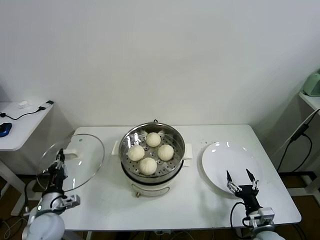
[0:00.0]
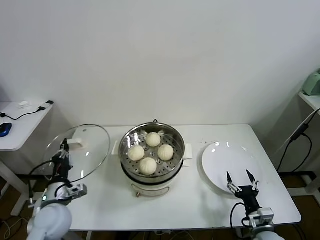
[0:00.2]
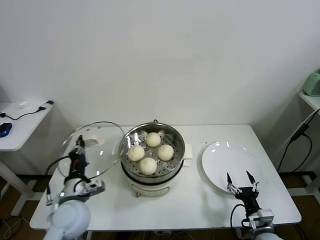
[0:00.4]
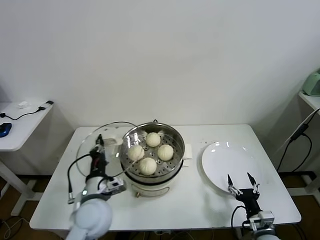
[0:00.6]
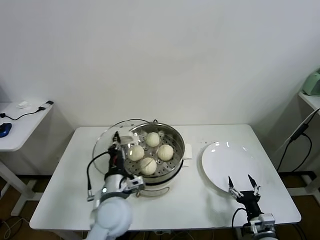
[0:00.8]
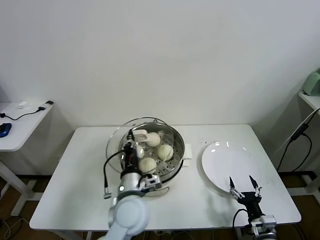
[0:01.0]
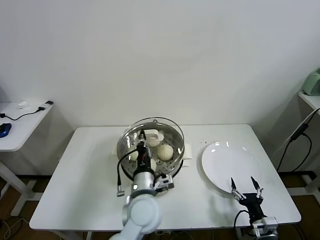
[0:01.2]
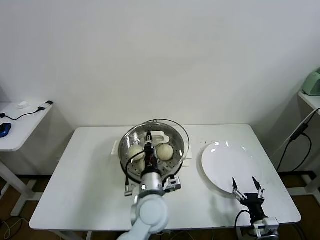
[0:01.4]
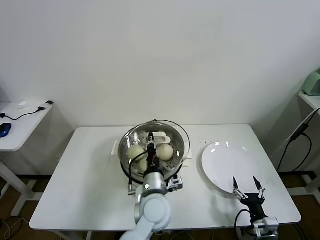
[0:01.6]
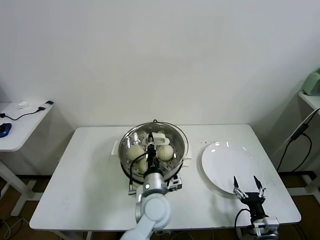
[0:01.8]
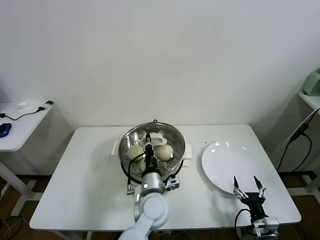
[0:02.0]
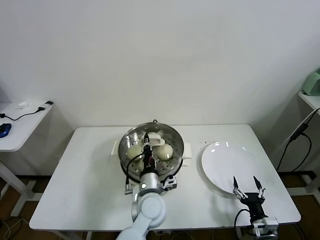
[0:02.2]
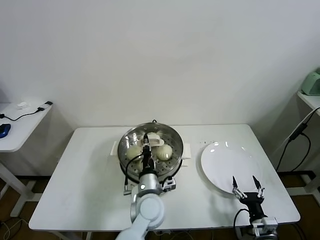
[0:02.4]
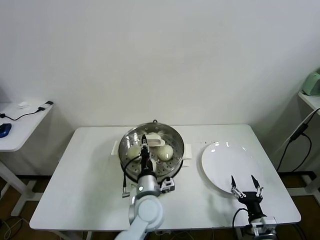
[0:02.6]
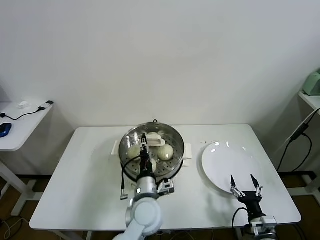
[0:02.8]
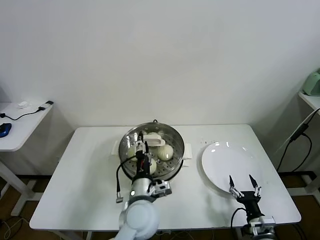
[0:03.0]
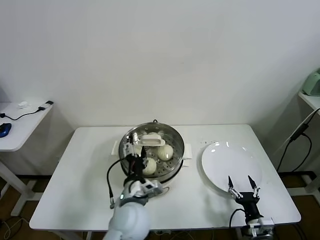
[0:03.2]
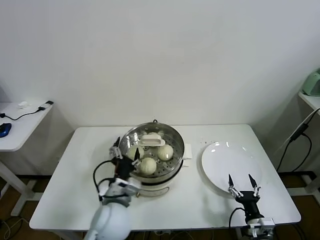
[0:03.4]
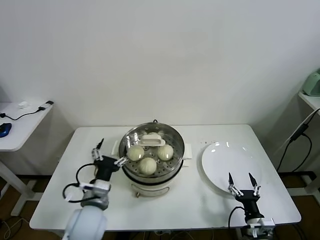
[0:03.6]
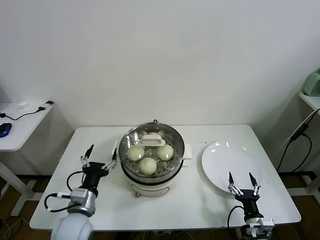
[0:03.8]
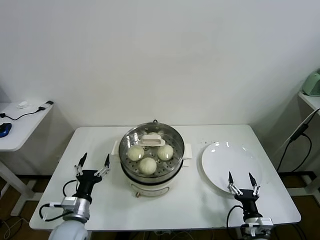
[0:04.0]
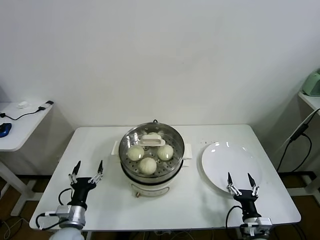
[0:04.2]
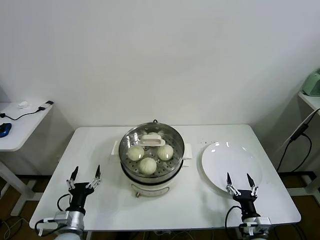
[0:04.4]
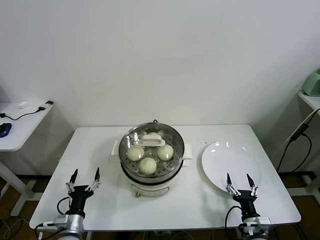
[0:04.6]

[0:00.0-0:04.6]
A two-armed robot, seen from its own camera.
Task of the whole recording: take steamed baozi put them in steamer.
Step, 0:00.0 to 0:02.8: Place the pot lid on the steamer with left gripper.
0:00.0 to 0:01.6: The left gripper travels to the right by about 35 cm.
0:01.6 to 0:03.0: The left gripper opens its fingers.
0:03.0 to 0:04.6: The left gripper is displaced to the left and downward by about 30 cm, and opens up.

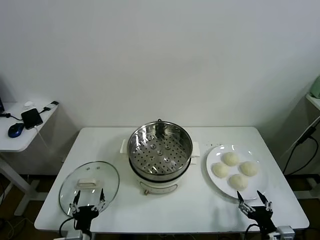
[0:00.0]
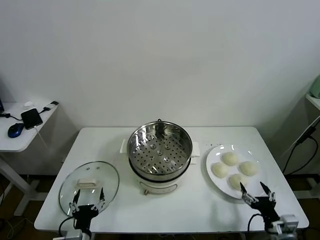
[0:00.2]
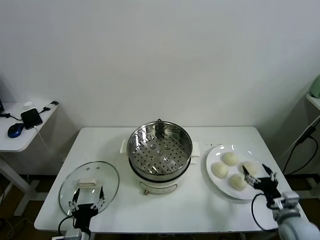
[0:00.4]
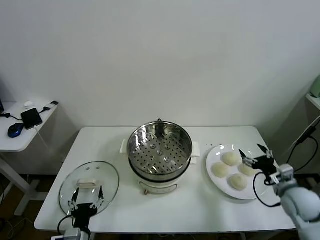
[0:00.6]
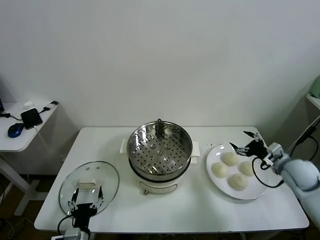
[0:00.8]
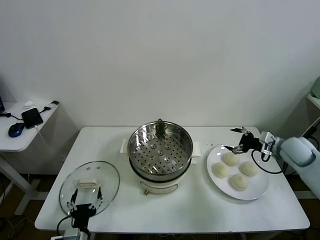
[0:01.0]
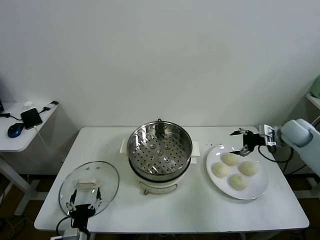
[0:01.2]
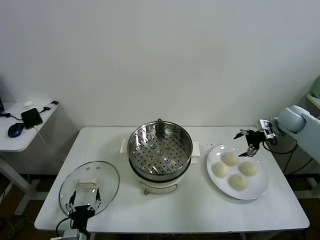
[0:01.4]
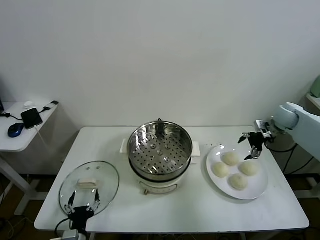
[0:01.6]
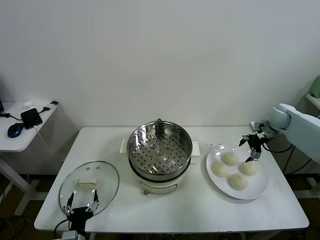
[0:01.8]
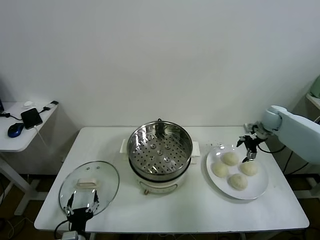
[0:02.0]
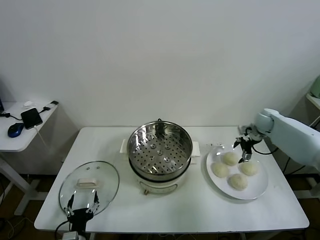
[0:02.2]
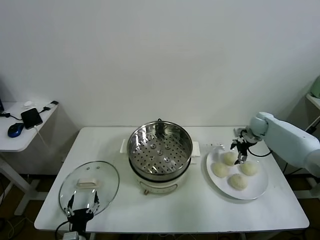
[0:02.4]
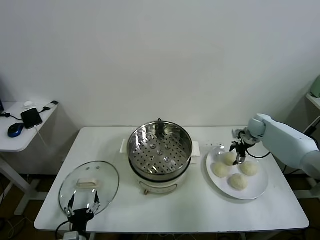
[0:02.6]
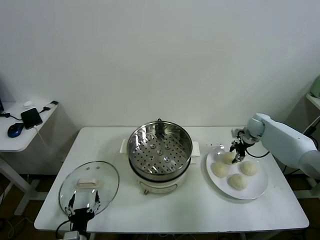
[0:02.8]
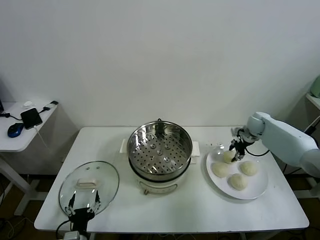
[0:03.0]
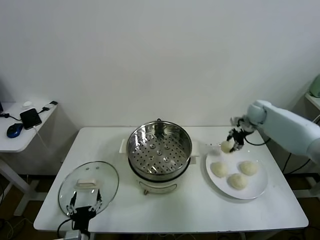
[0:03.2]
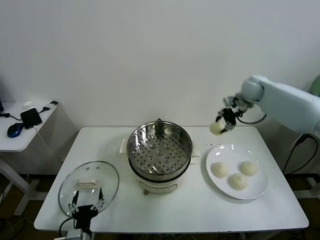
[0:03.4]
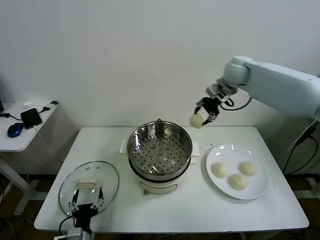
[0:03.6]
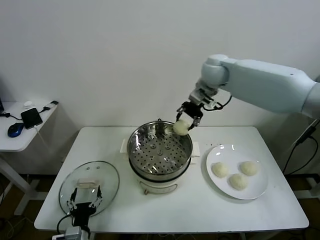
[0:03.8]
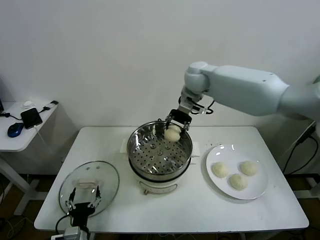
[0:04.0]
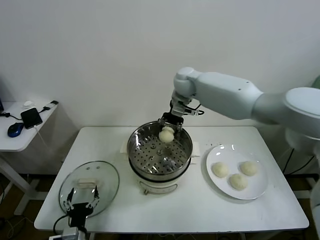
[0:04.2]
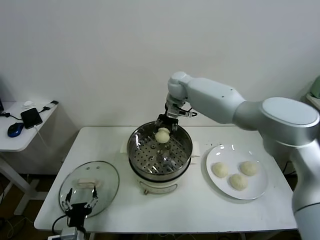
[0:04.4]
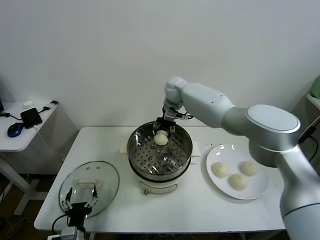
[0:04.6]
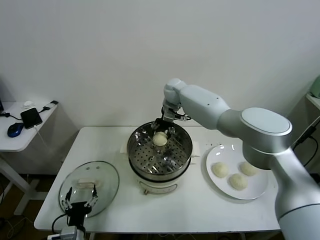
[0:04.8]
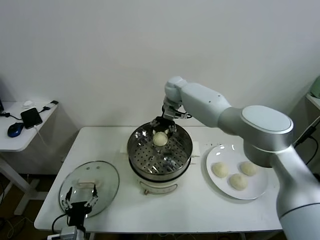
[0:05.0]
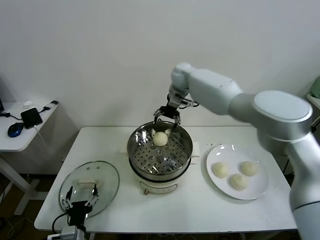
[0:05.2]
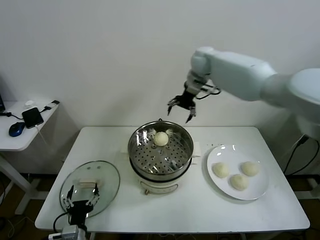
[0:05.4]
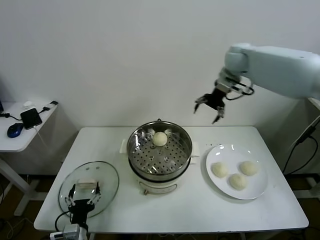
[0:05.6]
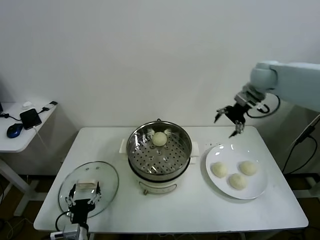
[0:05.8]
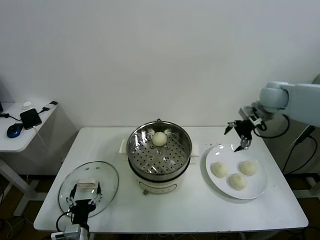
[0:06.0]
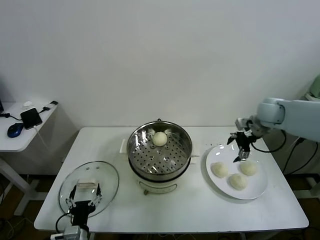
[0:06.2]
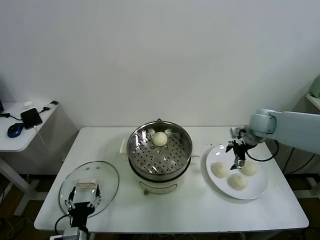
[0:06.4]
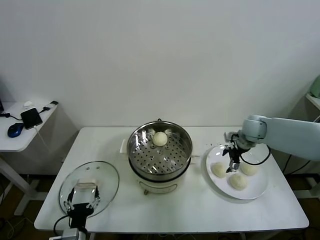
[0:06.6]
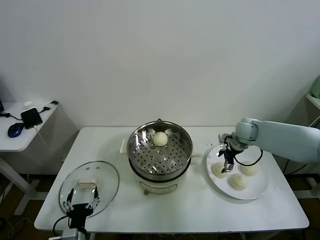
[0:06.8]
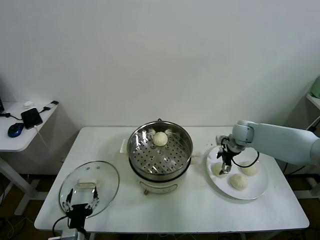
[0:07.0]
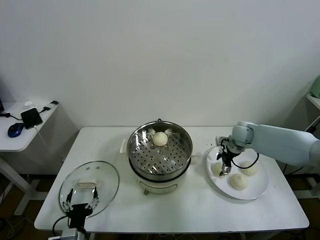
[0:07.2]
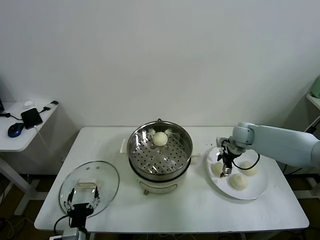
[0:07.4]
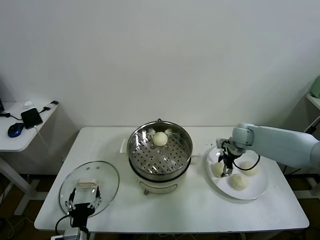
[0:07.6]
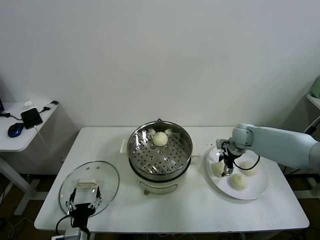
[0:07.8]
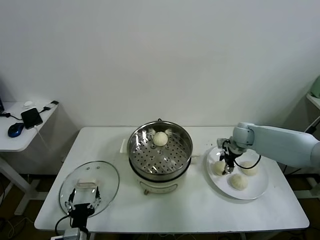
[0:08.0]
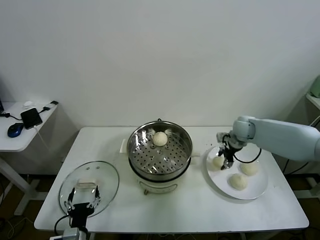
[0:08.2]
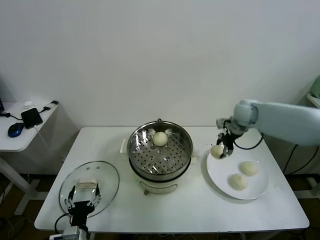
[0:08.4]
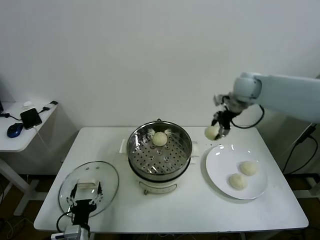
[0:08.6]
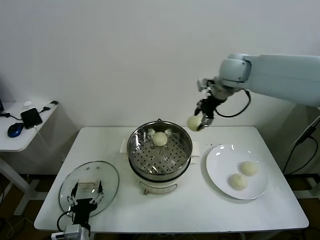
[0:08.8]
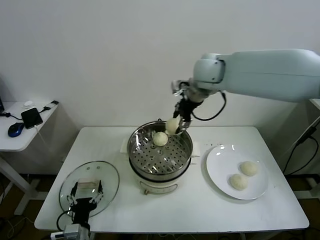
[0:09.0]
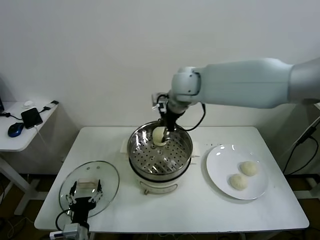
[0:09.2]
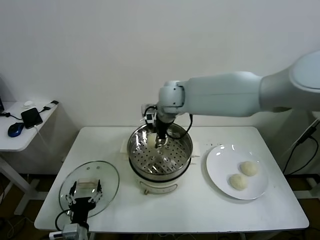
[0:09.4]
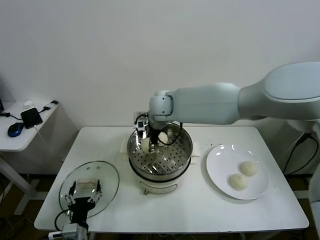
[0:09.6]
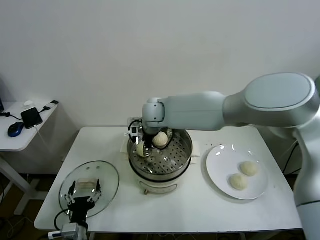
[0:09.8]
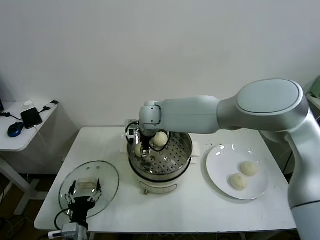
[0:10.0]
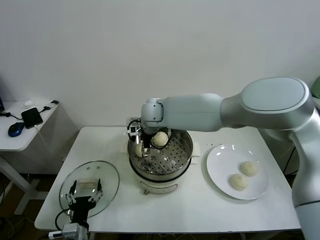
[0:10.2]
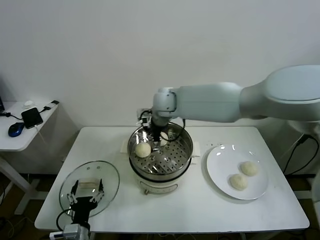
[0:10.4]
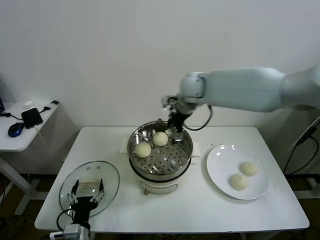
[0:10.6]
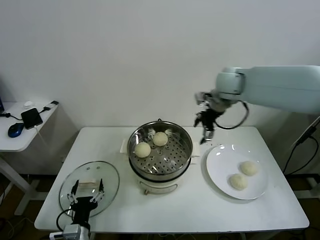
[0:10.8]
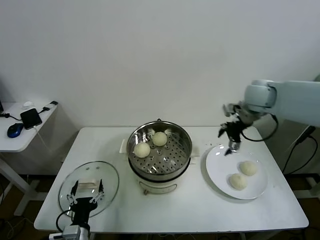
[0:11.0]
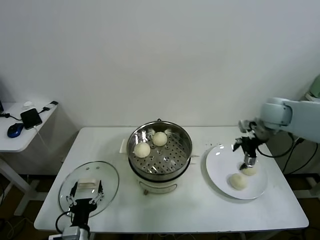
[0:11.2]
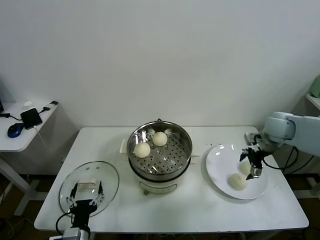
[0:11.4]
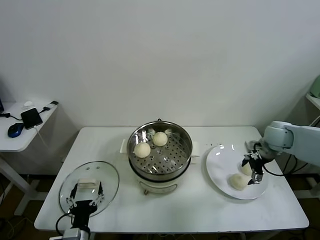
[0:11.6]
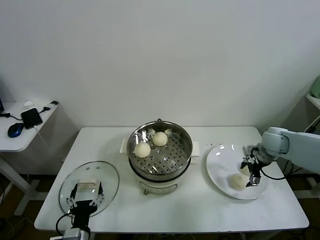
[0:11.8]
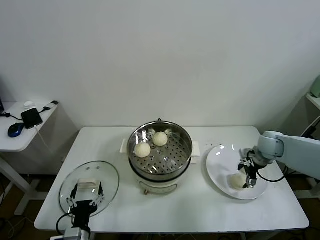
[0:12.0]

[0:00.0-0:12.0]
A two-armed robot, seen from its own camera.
Task of the whole recording: take steamed baozi put them in steamer.
Step, 0:00.0 to 0:02.8: Grasp the baozi in the plate with right gripper.
Step, 0:03.0 to 0:04.8: Place the baozi on the steamer with right gripper.
Step, 0:05.0 to 0:07.8: Grasp the baozi in the plate with right gripper.
Step, 0:08.0 to 0:10.2: Place the baozi on the steamer with right gripper.
0:01.6 to 0:03.0: The right gripper is displaced to the left and downward by approximately 10 cm, and closes its fingers.
0:03.0 to 0:04.4: The right gripper shifts roughly 35 cm to the left.
0:04.4 to 0:06.0: The right gripper shifts approximately 30 cm to the right, and opens up.
0:06.0 to 0:07.6: The right gripper is displaced downward by approximately 15 cm.
0:07.6 to 0:09.0: The right gripper is displaced upward and to the left by about 35 cm, and closes.
0:09.0 to 0:10.4: The right gripper shifts some 10 cm downward and to the left, and opens its fingers.
0:10.4 to 0:12.0: The right gripper shifts some 40 cm to the right and downward.

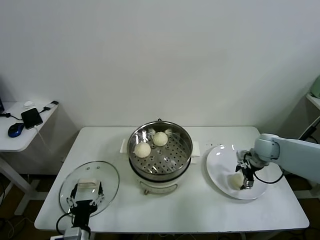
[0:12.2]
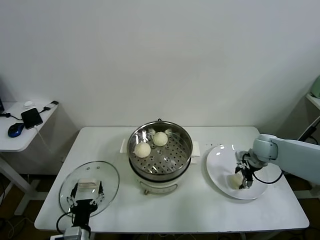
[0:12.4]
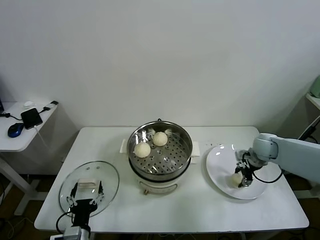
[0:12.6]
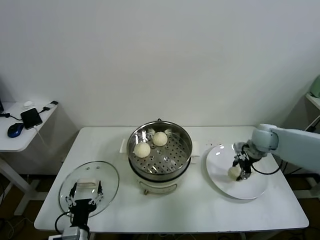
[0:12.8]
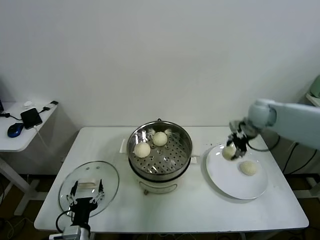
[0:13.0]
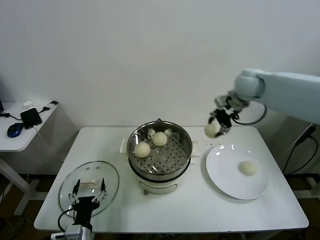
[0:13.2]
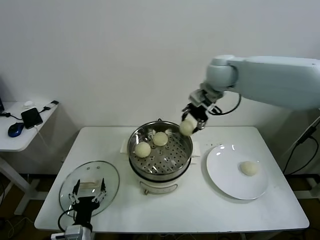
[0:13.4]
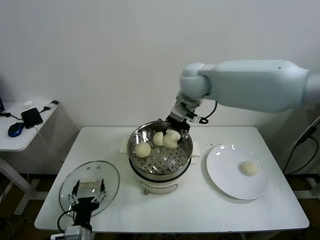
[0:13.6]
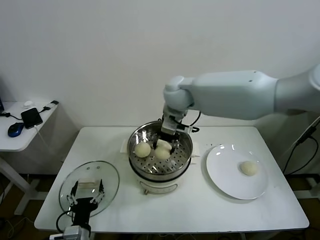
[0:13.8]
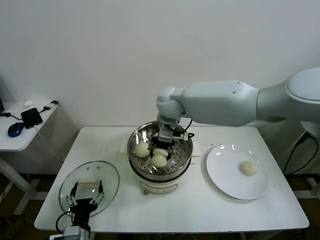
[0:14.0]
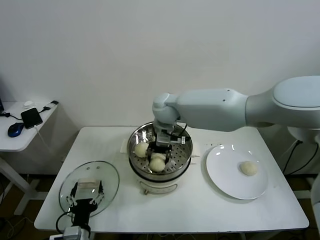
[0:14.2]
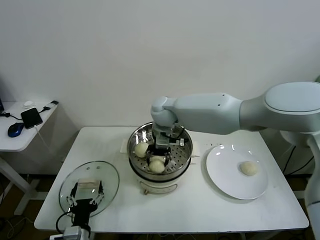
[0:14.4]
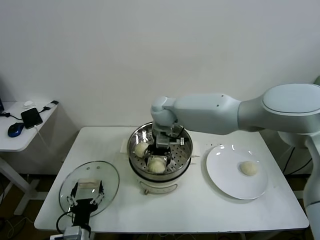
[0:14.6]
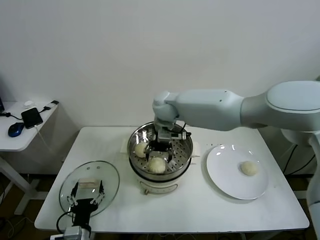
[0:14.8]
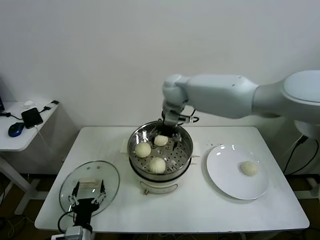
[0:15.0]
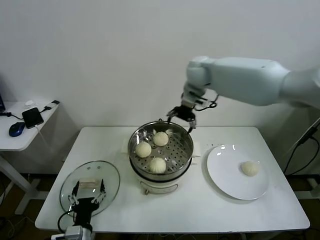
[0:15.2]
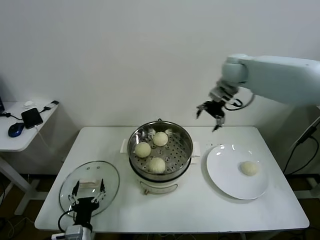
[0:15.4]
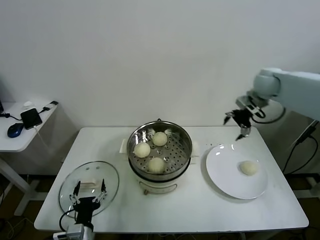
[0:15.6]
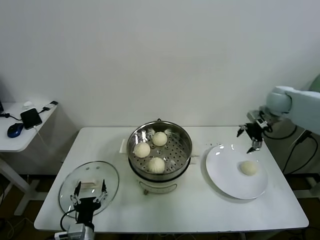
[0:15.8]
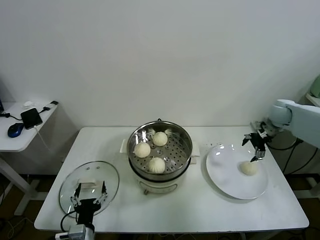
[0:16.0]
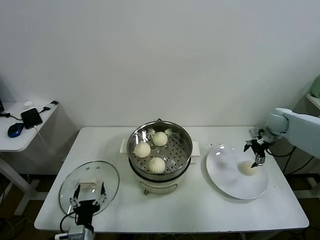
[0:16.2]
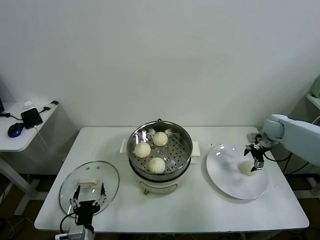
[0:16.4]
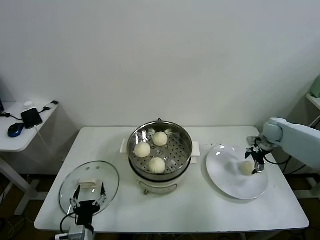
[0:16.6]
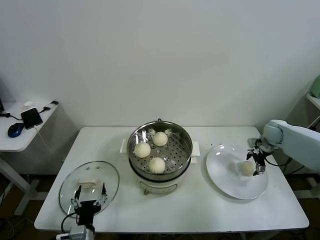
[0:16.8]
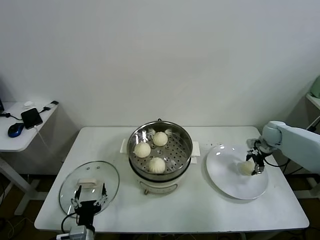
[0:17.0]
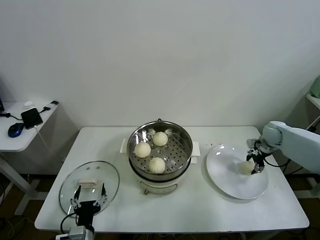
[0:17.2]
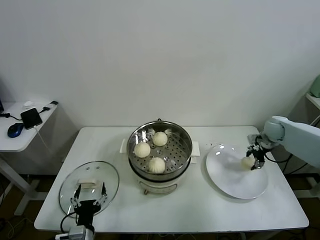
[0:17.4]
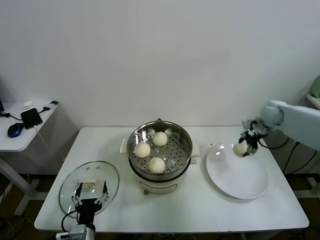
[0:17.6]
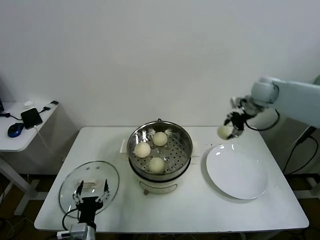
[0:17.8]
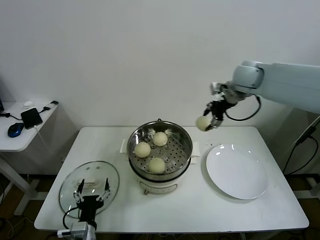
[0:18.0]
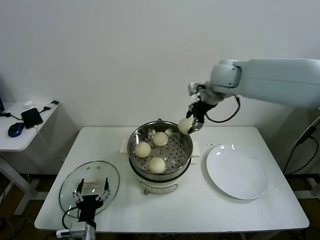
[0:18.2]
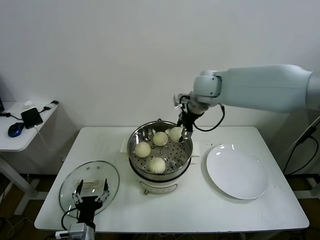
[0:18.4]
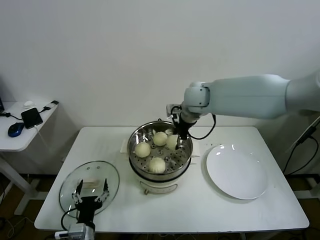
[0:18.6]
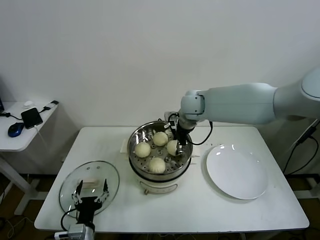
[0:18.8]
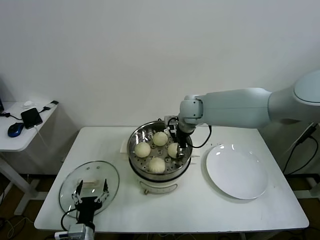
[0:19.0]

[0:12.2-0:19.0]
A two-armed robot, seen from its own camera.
Task of the whole recording: take steamed baozi put them in steamer.
Step, 0:12.8 to 0:14.8: Place the baozi on the steamer with right gripper.
Step, 0:15.0 to 0:17.0: Grasp the baozi in the plate with right gripper.
0:12.2 to 0:13.6: The right gripper moves to the left and upward, some 40 cm, and closes its fingers.
0:13.6 to 0:15.0: The right gripper travels forward by approximately 5 cm, goes downward and returns, approximately 10 cm each way, and opens its fingers.
0:15.0 to 0:16.2: The right gripper travels to the right by some 40 cm.
0:16.2 to 0:17.6: The right gripper moves roughly 5 cm, and closes its fingers.
0:17.6 to 0:19.0: The right gripper is displaced to the left by roughly 30 cm.
